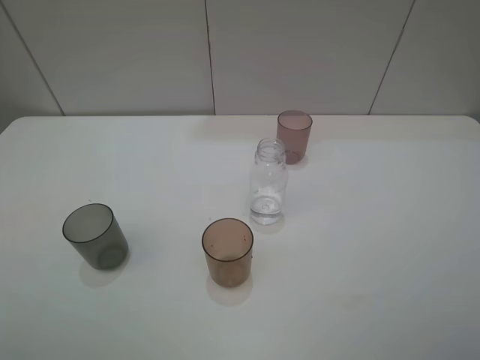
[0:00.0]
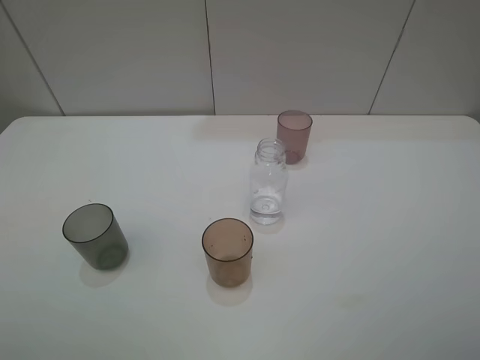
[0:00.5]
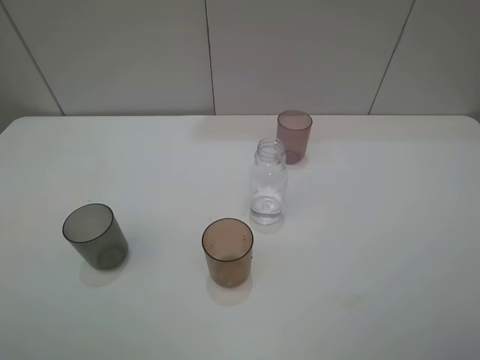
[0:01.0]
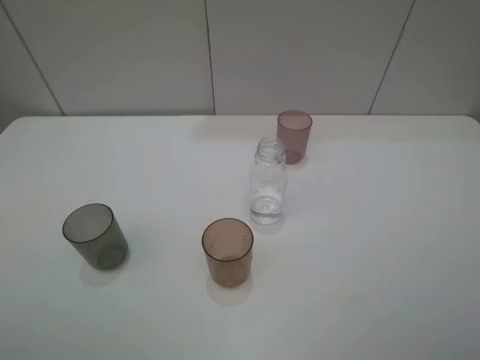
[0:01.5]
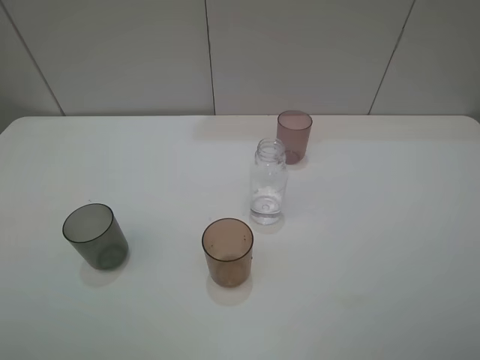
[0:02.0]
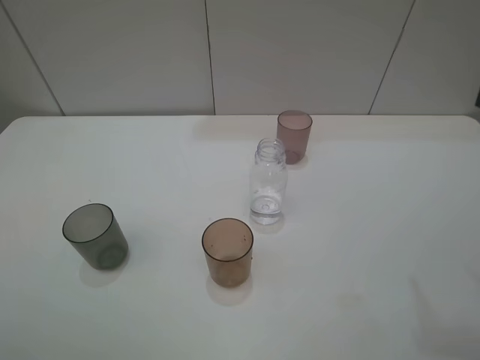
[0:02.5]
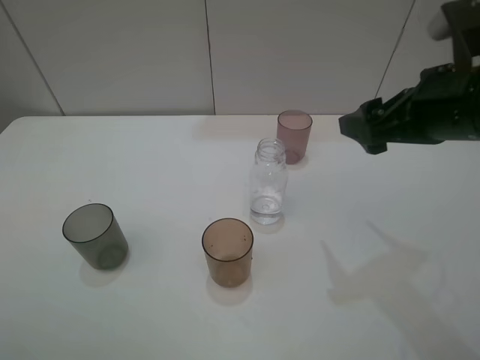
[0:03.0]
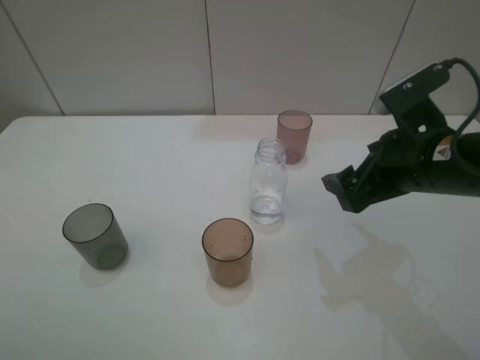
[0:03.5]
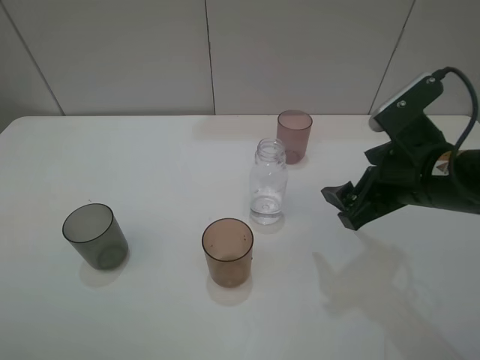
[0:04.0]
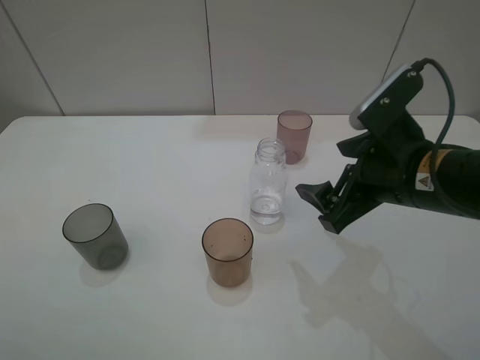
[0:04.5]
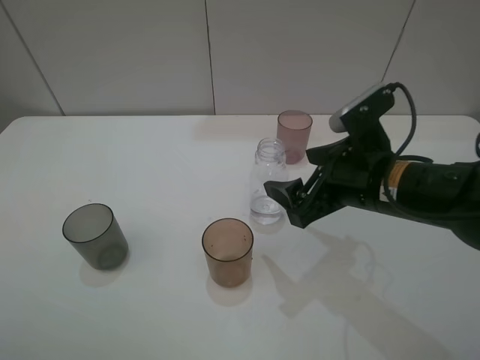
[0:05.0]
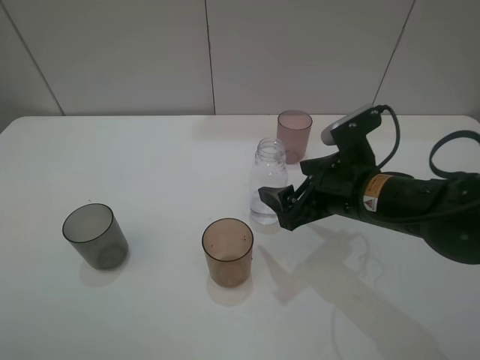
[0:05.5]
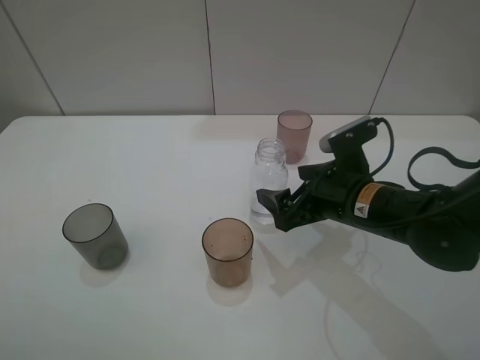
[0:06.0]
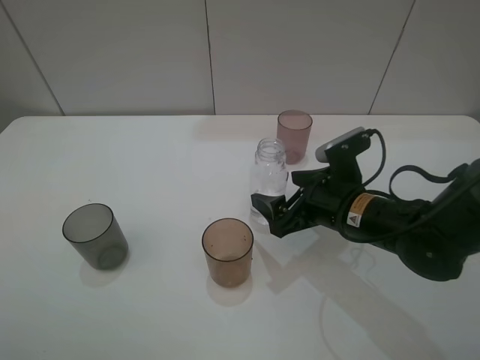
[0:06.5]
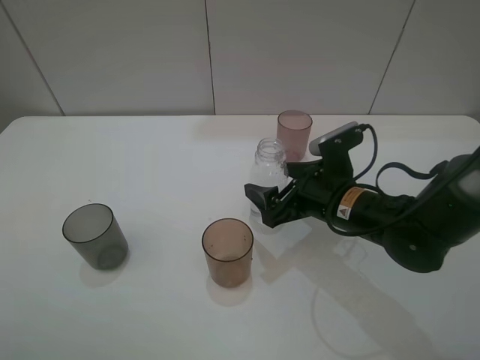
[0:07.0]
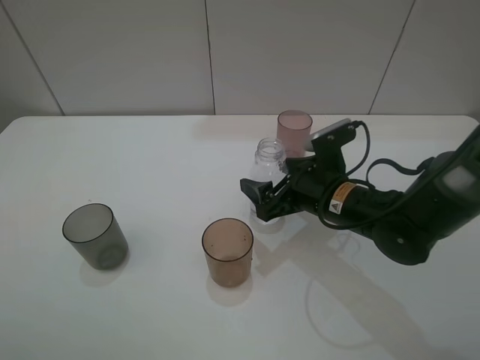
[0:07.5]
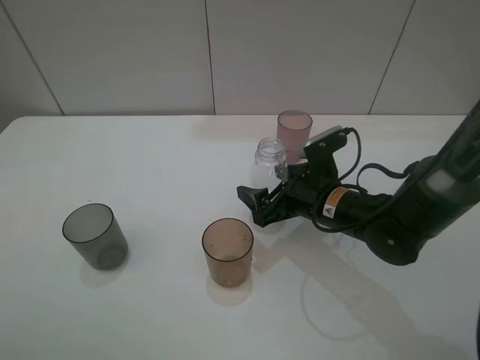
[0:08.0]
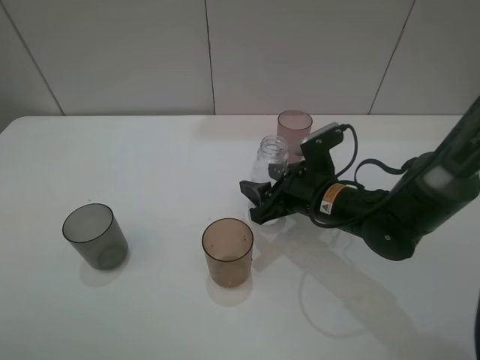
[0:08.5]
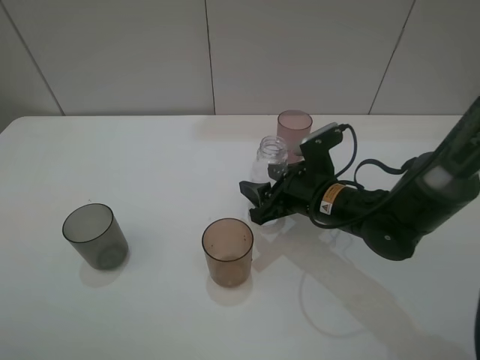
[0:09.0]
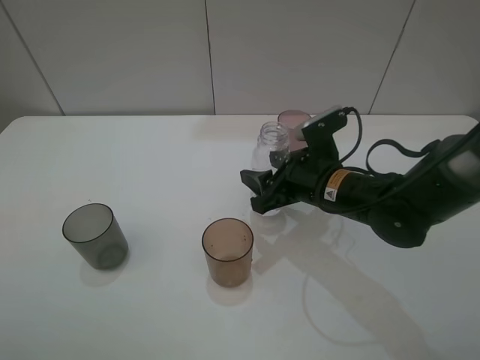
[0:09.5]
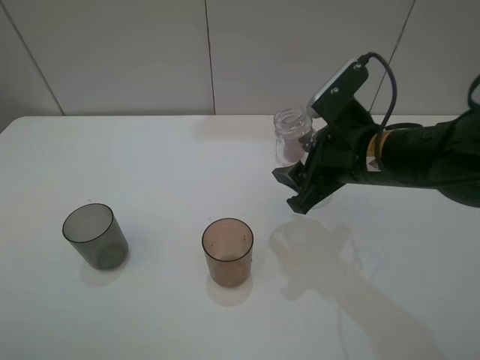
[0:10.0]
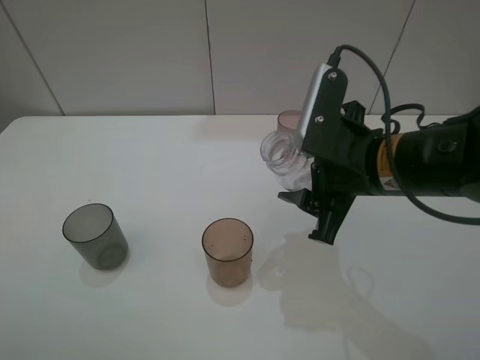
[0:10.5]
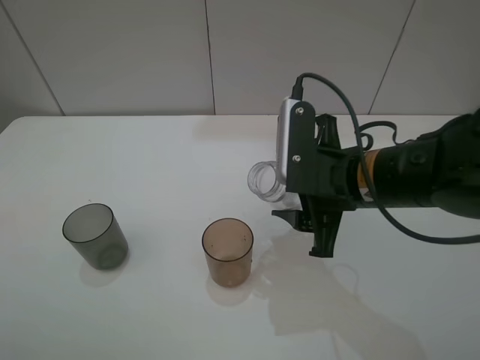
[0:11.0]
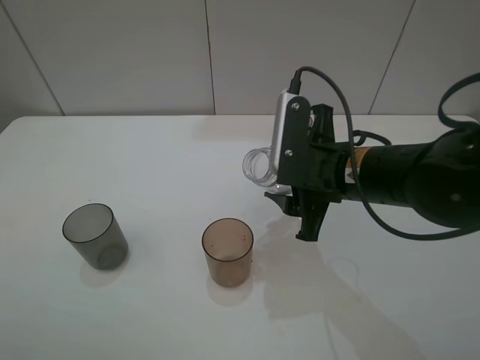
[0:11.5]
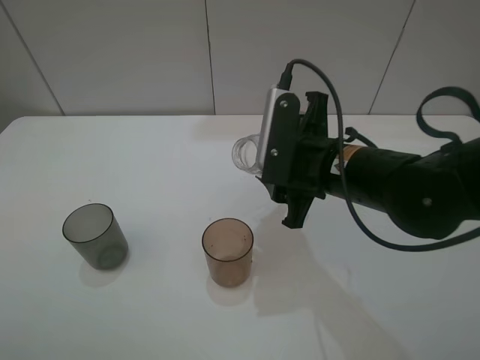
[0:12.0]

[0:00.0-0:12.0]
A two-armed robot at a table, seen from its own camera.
Task of the whole recording: pick up the bottle filled with water and pour water into the middle cup of the three cups.
Step, 0.0 to 8.5 s: Grasp the transparent bottle with the right gripper.
2.0 to 4.0 s: The right gripper moves forward, downward and to the left, about 25 cm.
4.0 to 6.0 s: The right gripper shifts some 10 cm downward.
6.0 to 8.0 s: The right gripper shifts by roughly 5 cm.
8.0 to 10.0 s: The right gripper is displaced upward by approximately 10 cm, and closes.
10.0 to 12.0 s: The right gripper ends up approximately 5 cm from where it was.

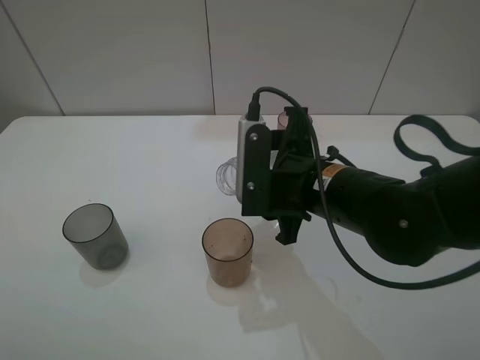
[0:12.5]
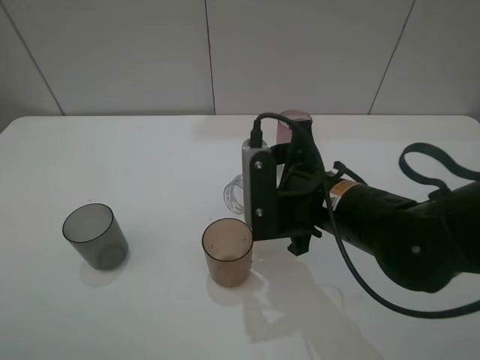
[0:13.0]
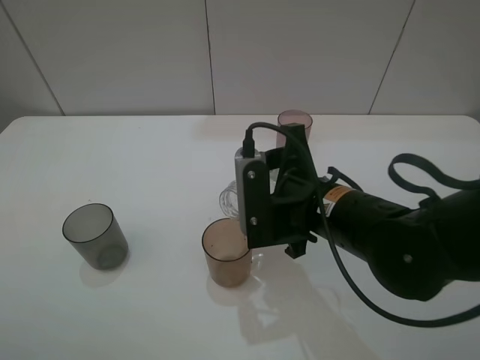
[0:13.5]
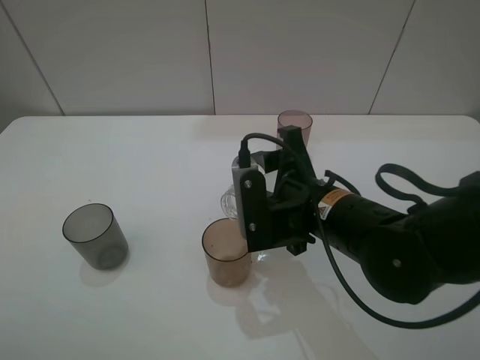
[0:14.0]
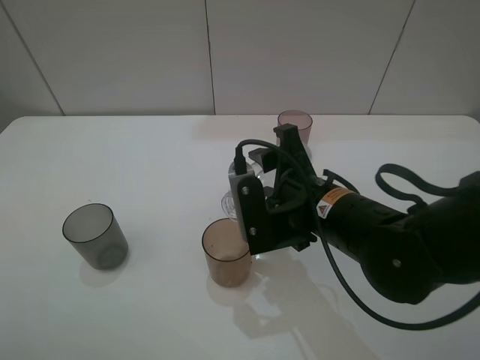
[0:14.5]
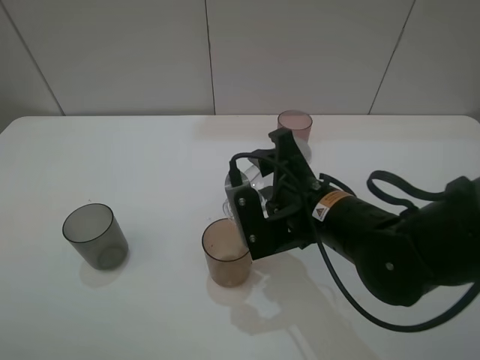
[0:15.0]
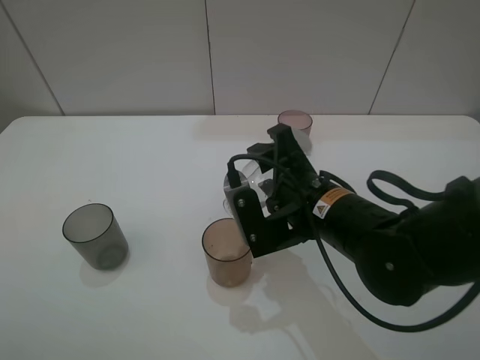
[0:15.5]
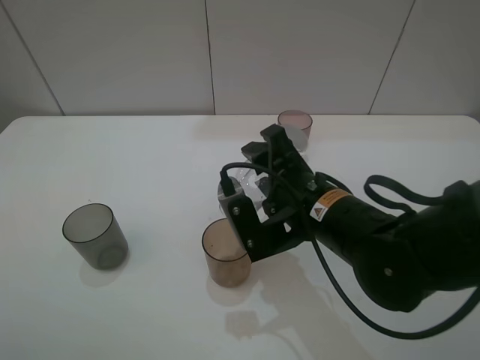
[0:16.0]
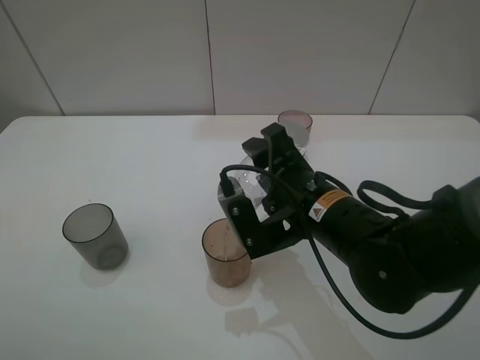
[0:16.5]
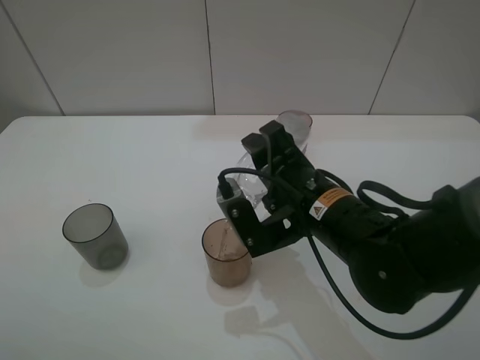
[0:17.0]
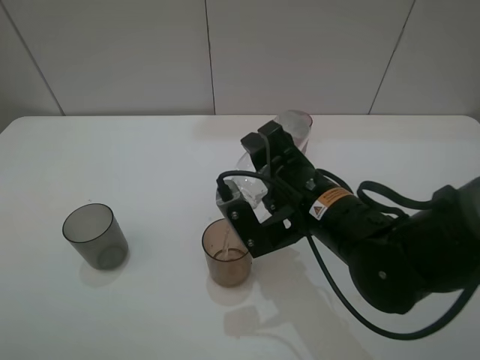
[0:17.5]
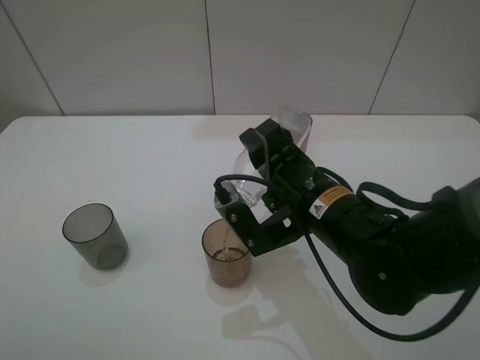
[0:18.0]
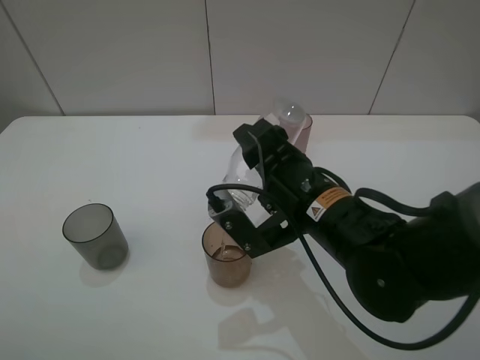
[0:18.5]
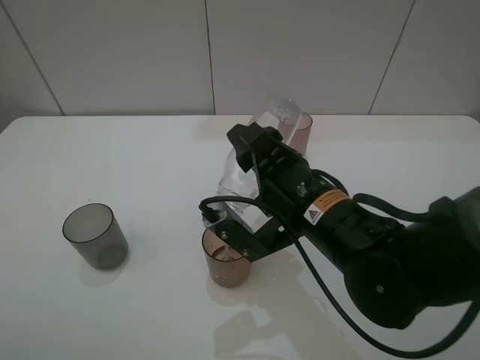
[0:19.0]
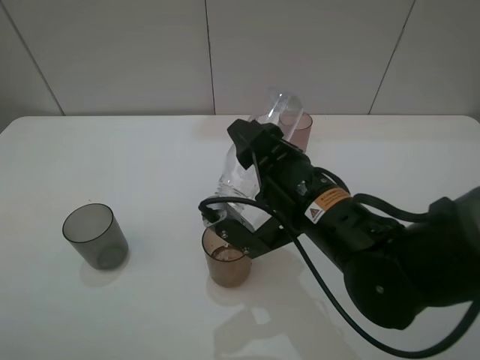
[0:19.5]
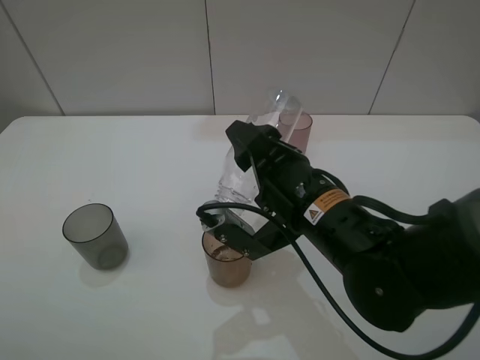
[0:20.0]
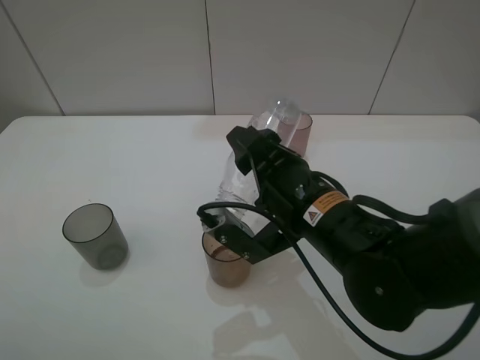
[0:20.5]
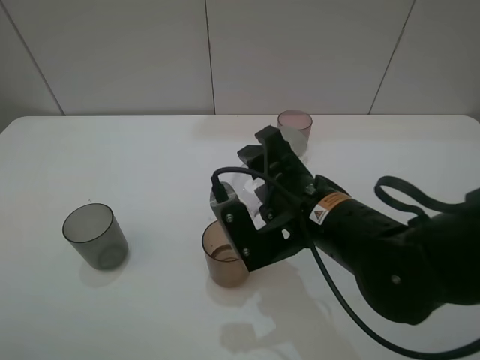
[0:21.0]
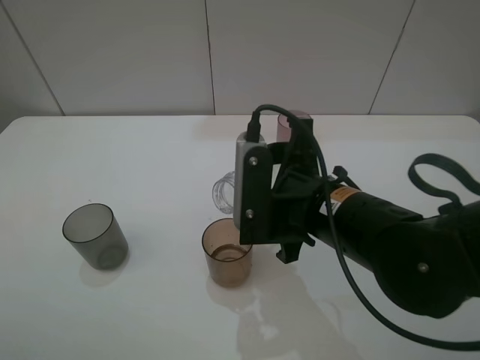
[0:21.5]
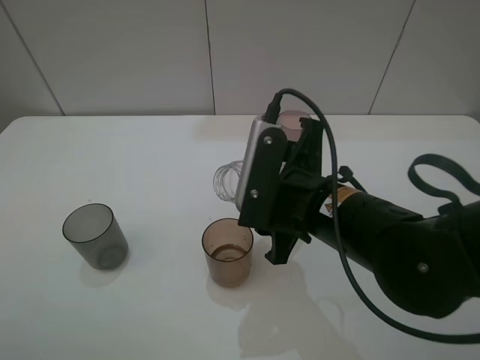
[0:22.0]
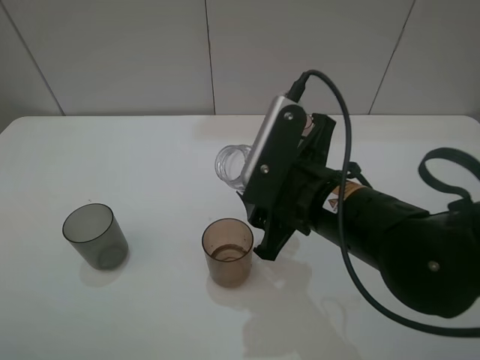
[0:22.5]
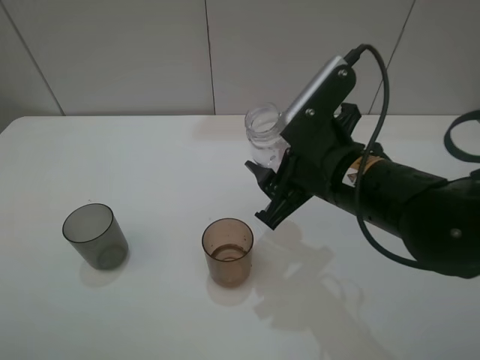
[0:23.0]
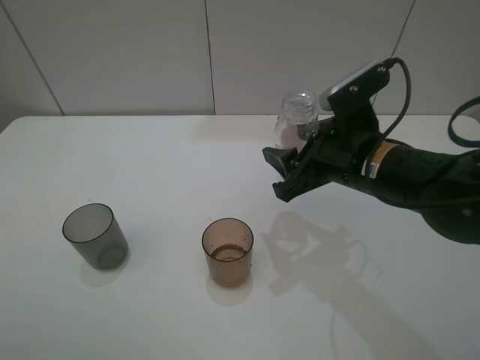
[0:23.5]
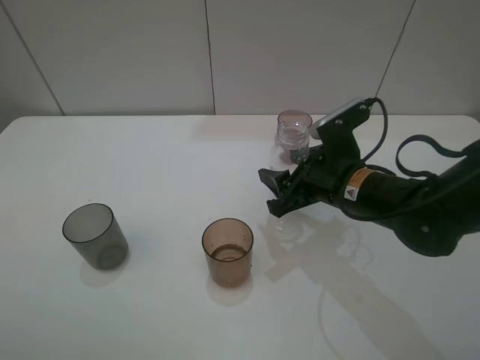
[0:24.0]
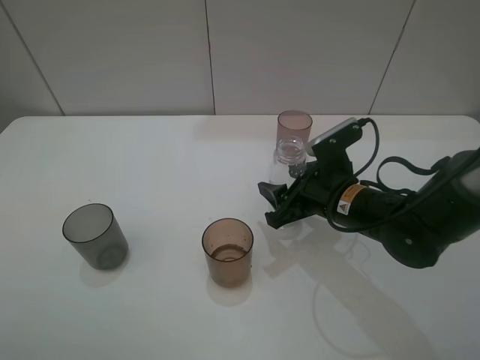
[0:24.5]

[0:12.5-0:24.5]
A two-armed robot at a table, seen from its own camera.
Task of the whole recording: pick up the bottle filled with water and pour water into the middle cup of the three cups.
Step, 12.5 to 20.5 s: Pour water from transparent bottle tobrown cup with the right gripper.
12.5 to 14.5 s: The grippers move only a little.
14.5 to 16.5 s: The grippers make only small movements.
16.5 to 18.5 s: There are only small adjustments of the grippers.
18.5 to 20.5 s: The grippers move only a little.
22.5 to 24.5 s: The right gripper moves downward, forward and to the right, roughly 10 cm.

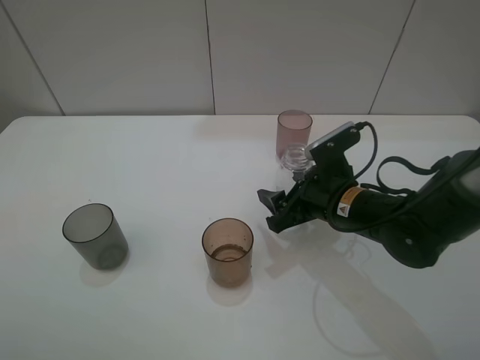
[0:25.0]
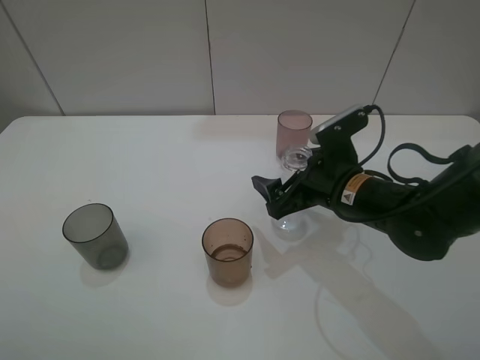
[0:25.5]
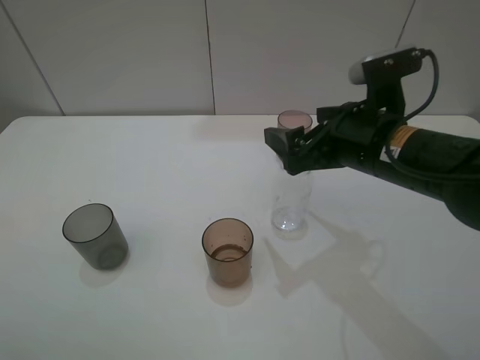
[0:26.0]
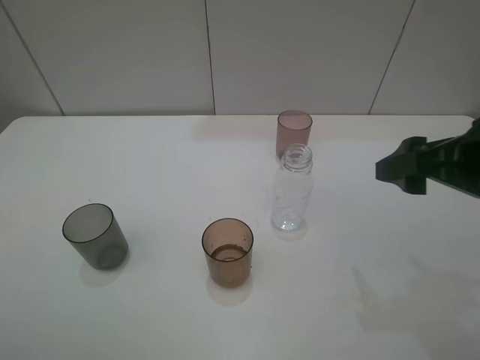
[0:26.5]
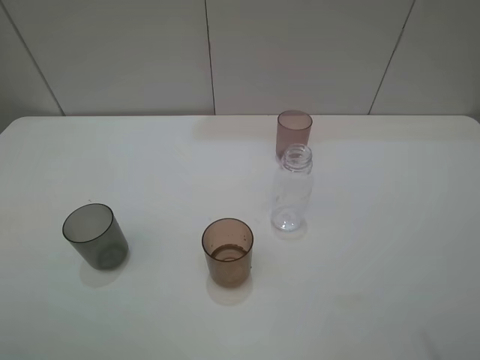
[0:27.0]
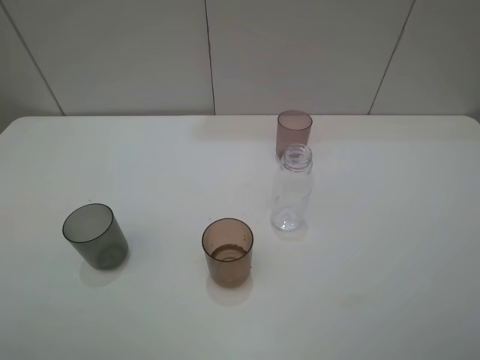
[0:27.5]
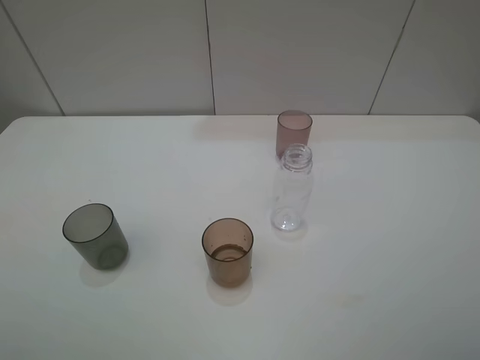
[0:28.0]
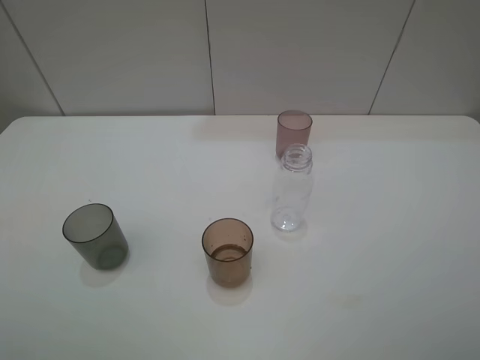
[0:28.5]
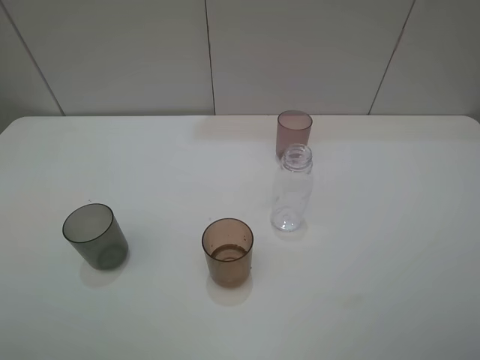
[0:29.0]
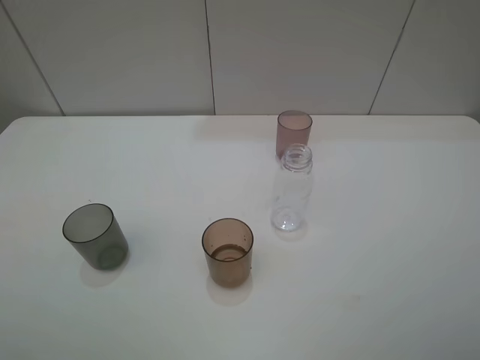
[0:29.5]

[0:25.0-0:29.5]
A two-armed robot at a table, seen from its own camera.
Task of the whole recording: pick up the bottle filled with water and pour water into the middle cup of the three cups.
25.0 to 27.0 s: The right gripper heads upward, backward and to the right, covering roughly 35 cm, and opens up.
